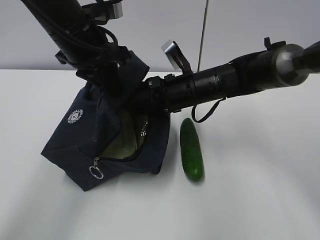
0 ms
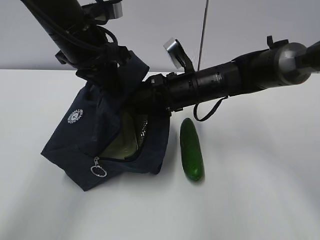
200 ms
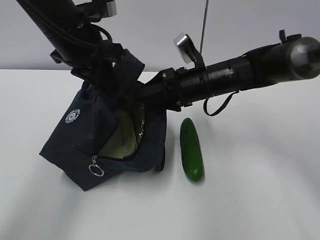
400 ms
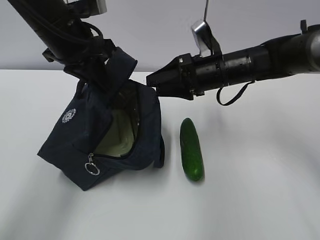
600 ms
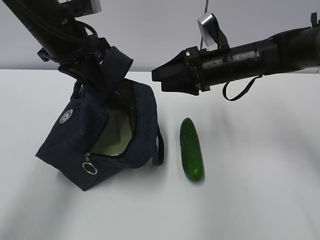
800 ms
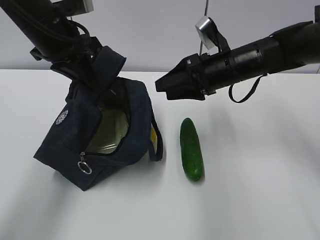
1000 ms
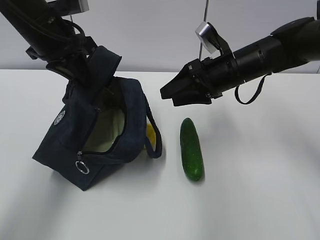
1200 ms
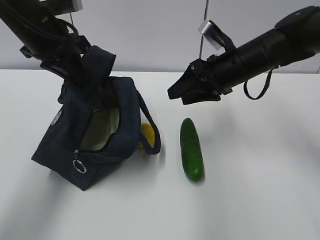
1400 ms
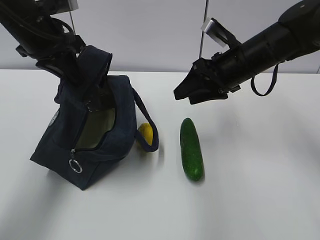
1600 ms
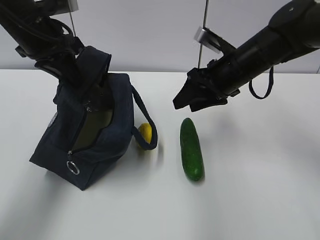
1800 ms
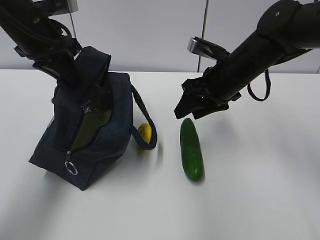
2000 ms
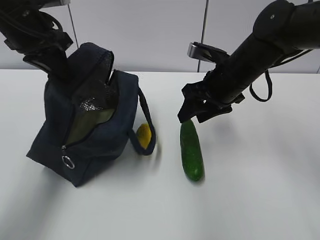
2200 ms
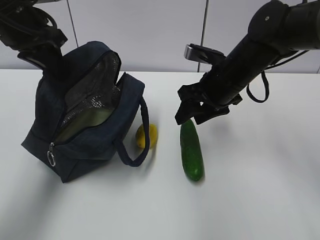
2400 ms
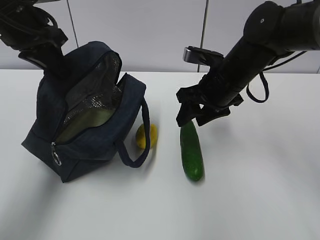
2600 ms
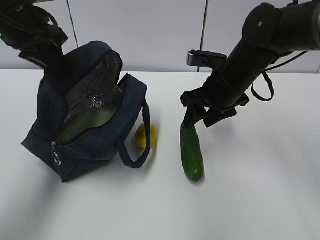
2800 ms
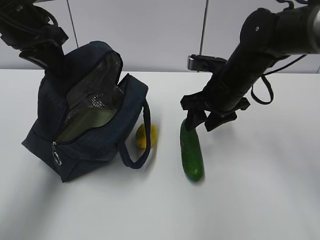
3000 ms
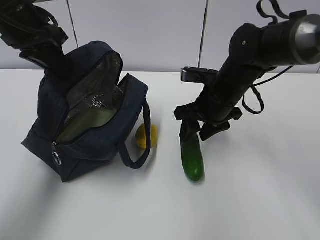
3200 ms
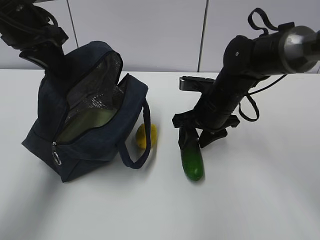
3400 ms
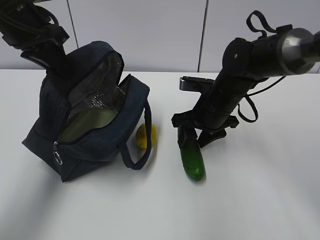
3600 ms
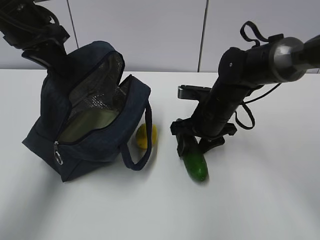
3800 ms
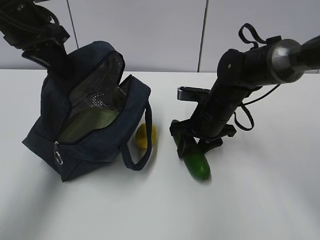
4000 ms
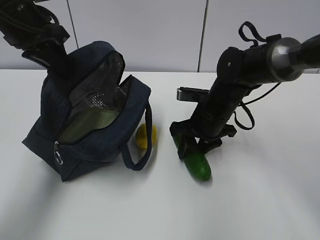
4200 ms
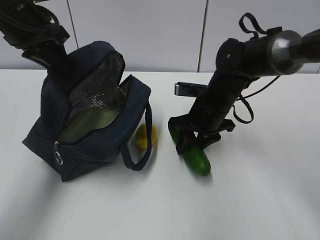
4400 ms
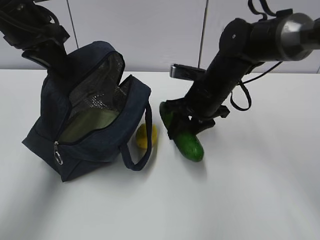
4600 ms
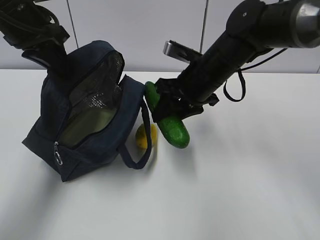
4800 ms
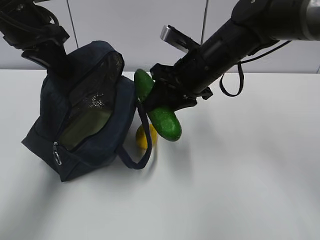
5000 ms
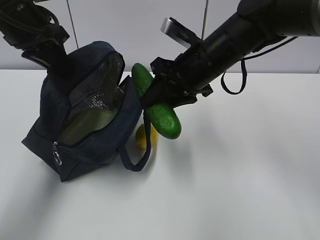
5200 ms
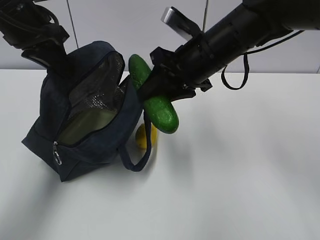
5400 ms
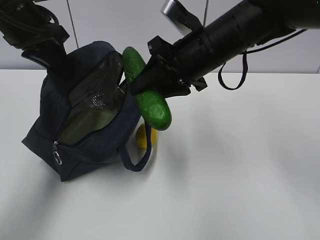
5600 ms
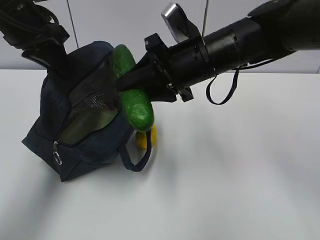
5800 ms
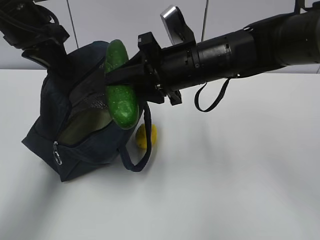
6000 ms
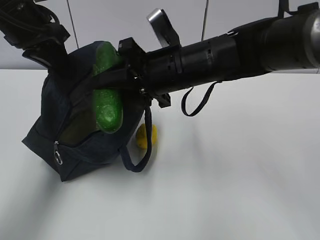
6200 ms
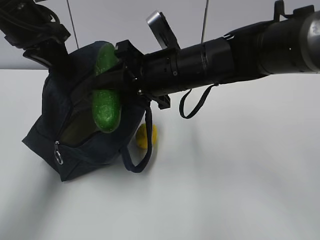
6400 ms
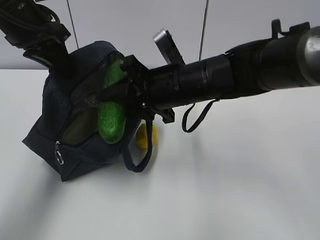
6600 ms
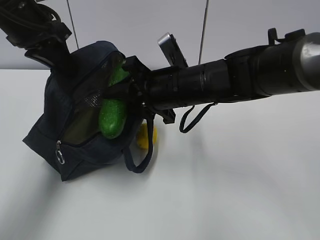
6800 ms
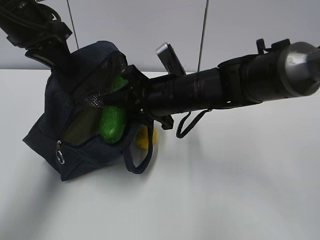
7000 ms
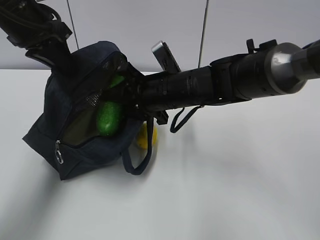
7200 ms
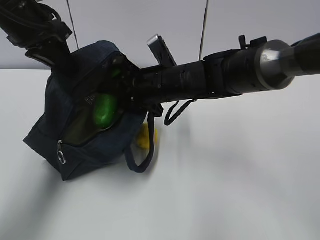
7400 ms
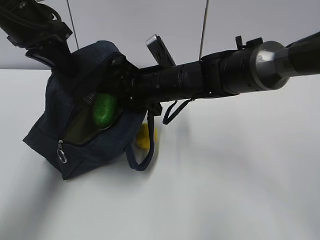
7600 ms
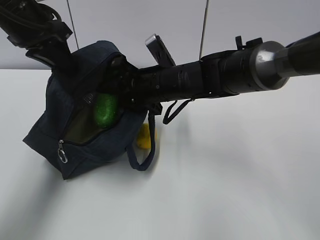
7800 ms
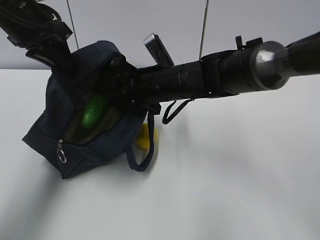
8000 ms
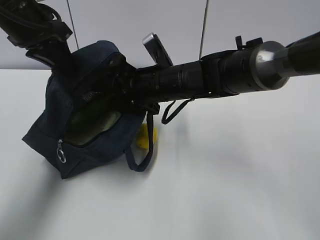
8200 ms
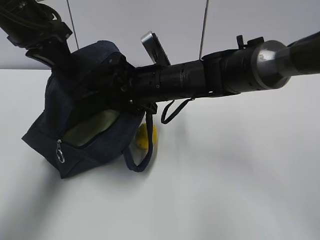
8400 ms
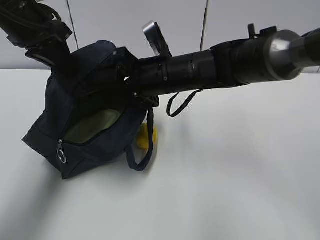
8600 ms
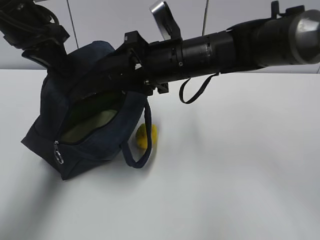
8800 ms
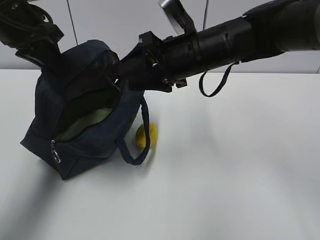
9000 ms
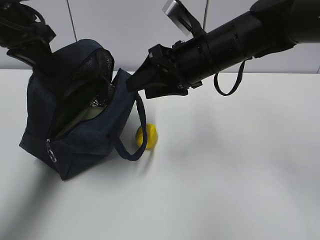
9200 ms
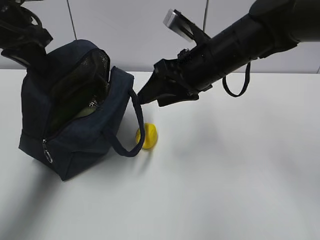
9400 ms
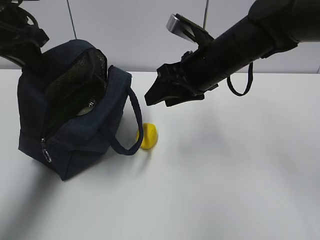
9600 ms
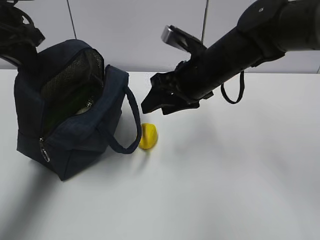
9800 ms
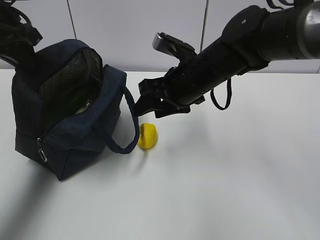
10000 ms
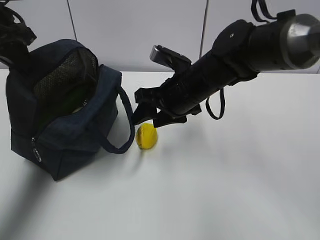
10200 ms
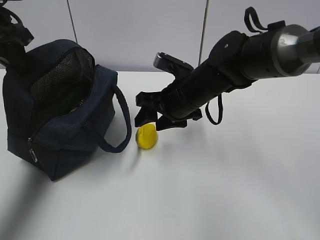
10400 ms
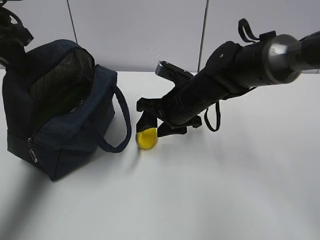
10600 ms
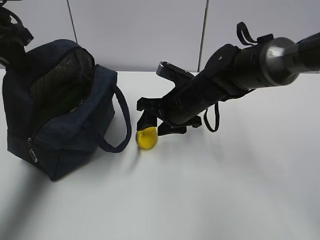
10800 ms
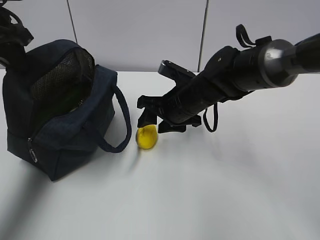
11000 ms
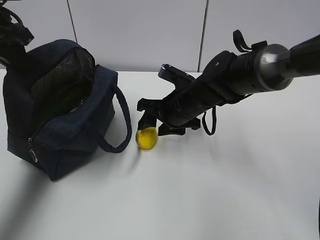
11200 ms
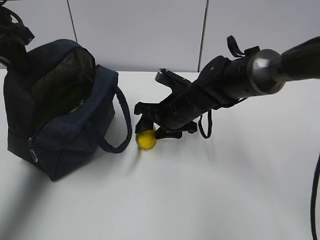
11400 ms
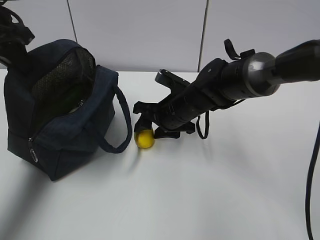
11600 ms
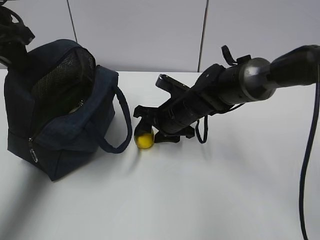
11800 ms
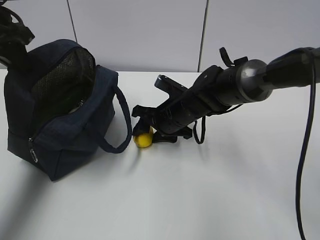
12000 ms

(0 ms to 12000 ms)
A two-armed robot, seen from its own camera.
Step, 0 ms - 2800 ms: Place it into the bag with your right hand.
Step, 3200 ms - 6000 ms: Grab the lemon with your right hand.
Step, 9000 ms - 11200 ms: Grab the lunch bag with your right hand.
0 ms - 1600 ms: The left gripper goes roughly 5 cm to the left; the right gripper goes roughly 10 cm to the right and upward.
3000 ms - 4400 ms: The right gripper travels downward by some 5 cm.
4400 ms - 6000 ms: The right gripper shifts some 10 cm upward.
6000 ms - 7600 ms: The right gripper travels downward by roughly 5 cm.
7600 ms - 9000 ms: The right gripper is displaced upward by some 5 cm.
9000 ms - 10400 ms: The left gripper shifts approximately 5 cm to the left. Meanwhile the right gripper is displaced downward by some 10 cm.
10400 ms - 12000 ms: The right gripper heads downward, covering some 5 cm.

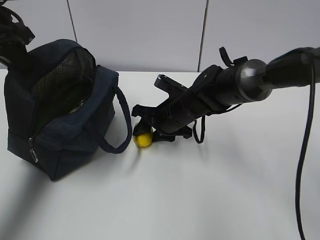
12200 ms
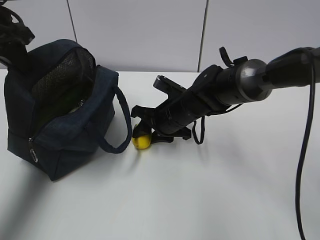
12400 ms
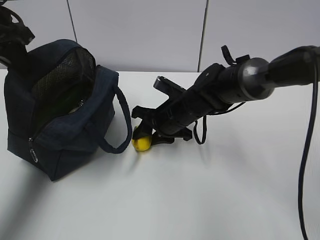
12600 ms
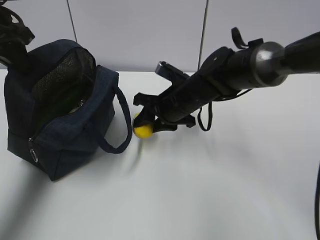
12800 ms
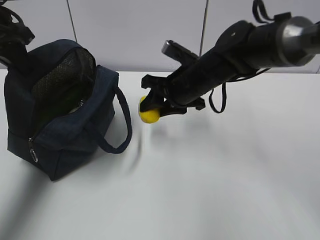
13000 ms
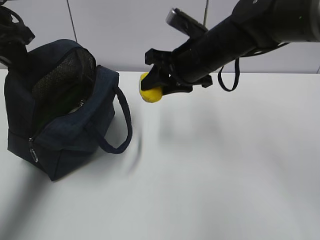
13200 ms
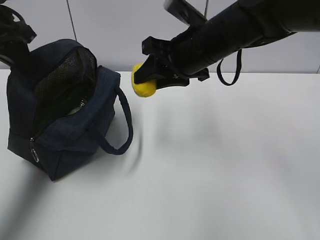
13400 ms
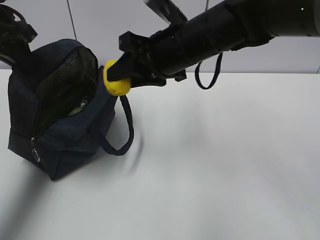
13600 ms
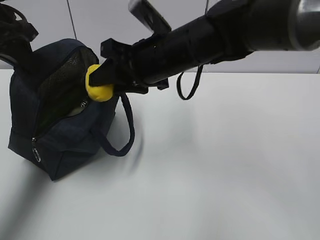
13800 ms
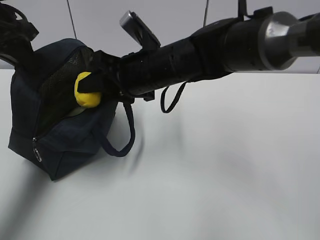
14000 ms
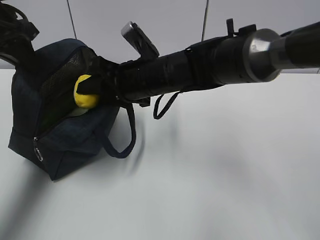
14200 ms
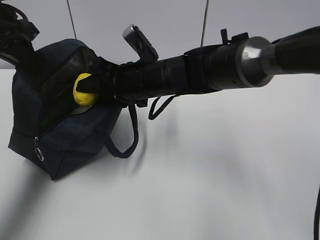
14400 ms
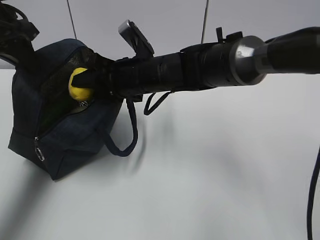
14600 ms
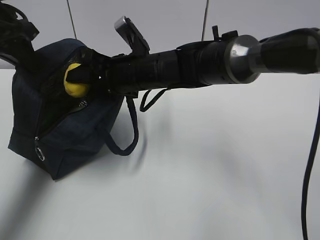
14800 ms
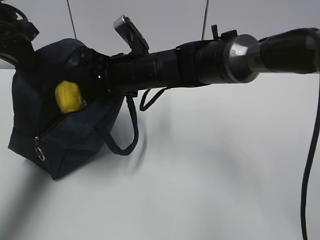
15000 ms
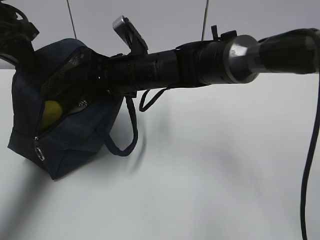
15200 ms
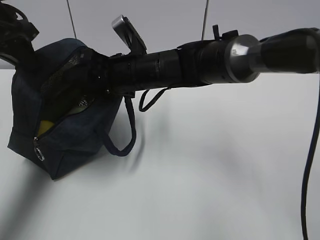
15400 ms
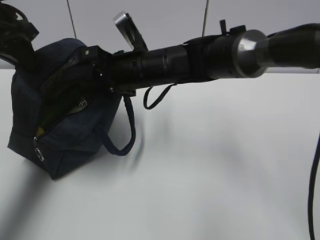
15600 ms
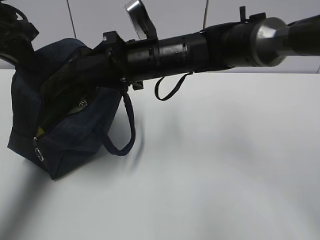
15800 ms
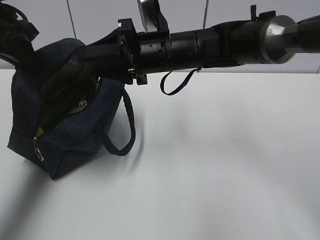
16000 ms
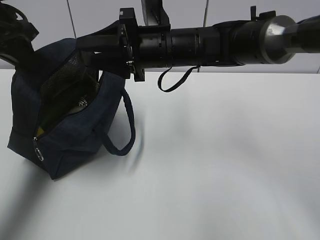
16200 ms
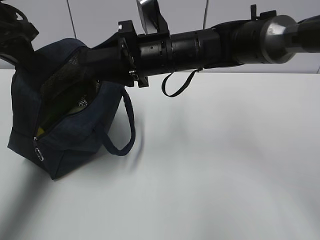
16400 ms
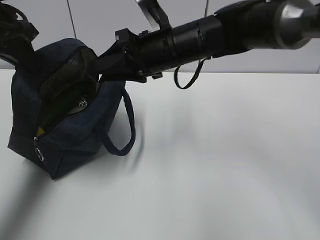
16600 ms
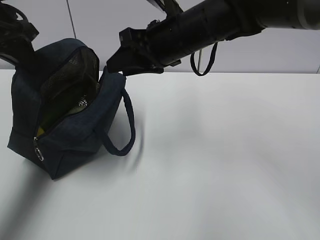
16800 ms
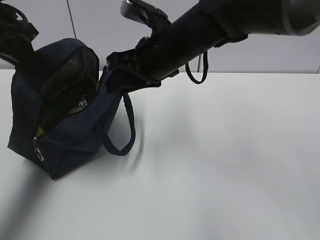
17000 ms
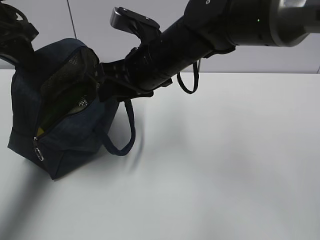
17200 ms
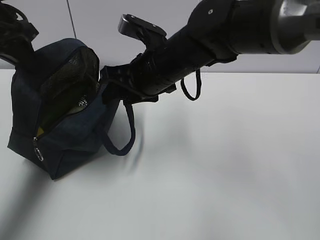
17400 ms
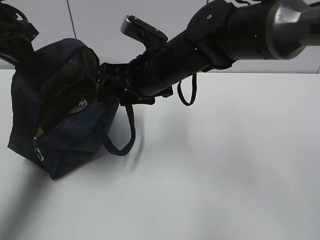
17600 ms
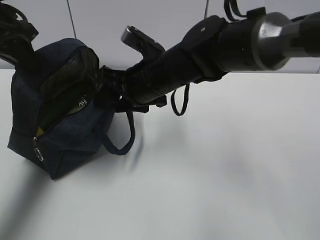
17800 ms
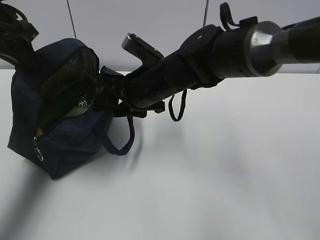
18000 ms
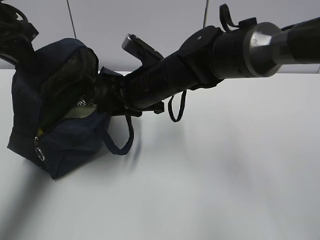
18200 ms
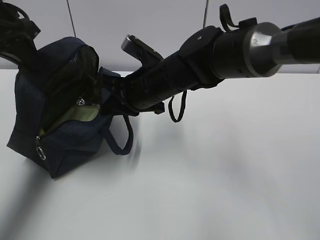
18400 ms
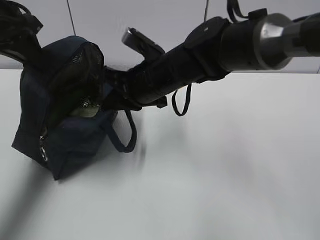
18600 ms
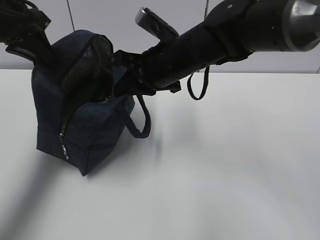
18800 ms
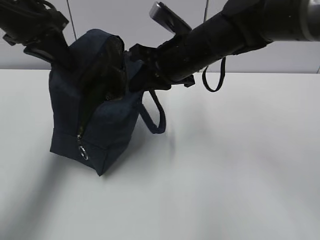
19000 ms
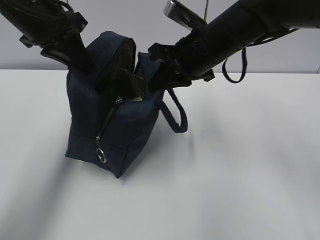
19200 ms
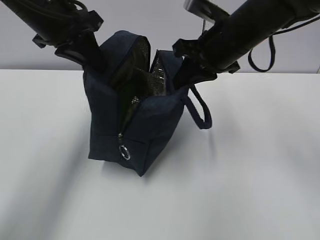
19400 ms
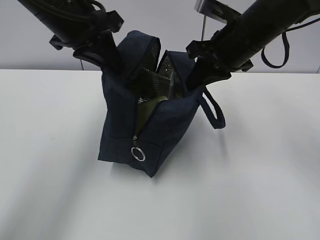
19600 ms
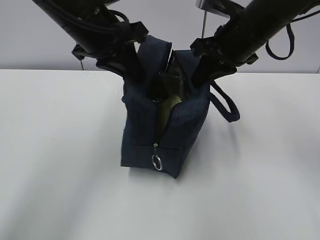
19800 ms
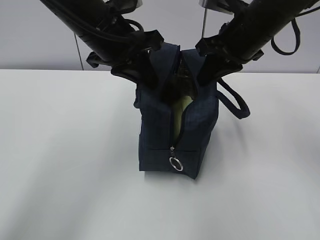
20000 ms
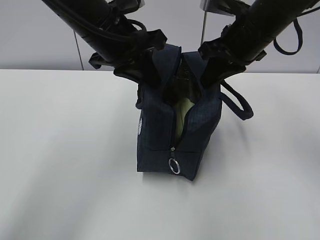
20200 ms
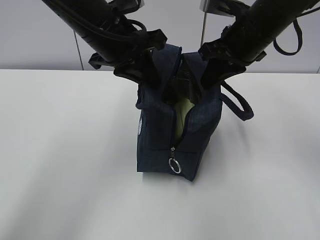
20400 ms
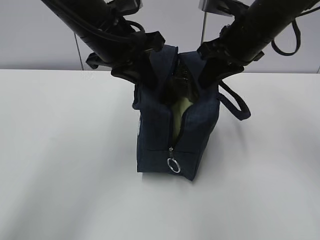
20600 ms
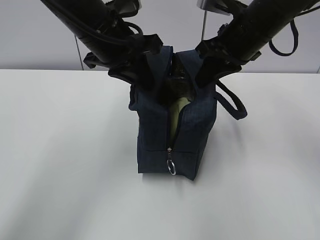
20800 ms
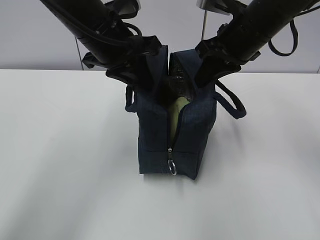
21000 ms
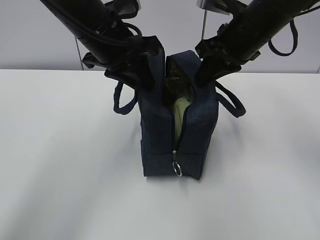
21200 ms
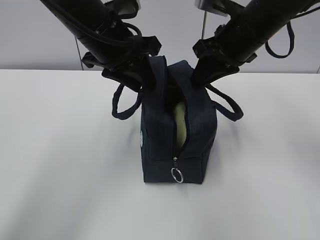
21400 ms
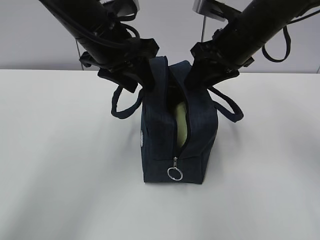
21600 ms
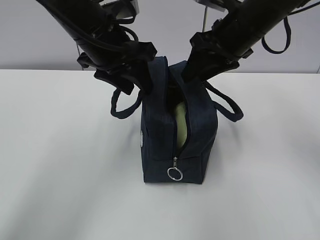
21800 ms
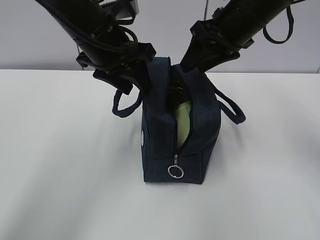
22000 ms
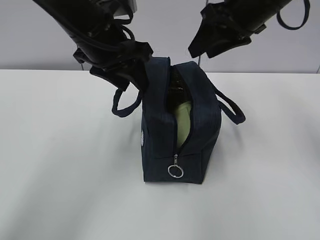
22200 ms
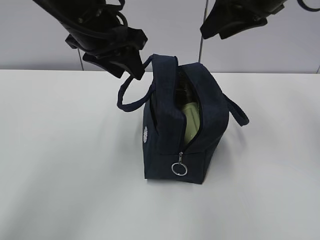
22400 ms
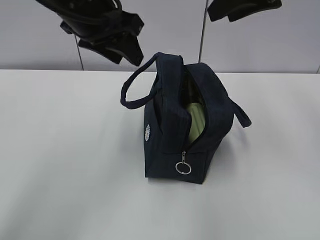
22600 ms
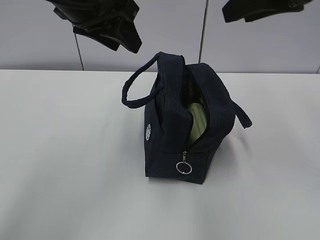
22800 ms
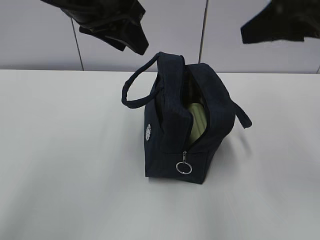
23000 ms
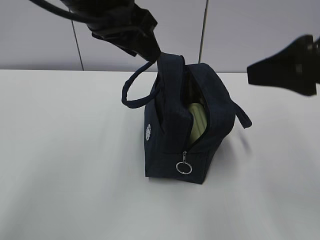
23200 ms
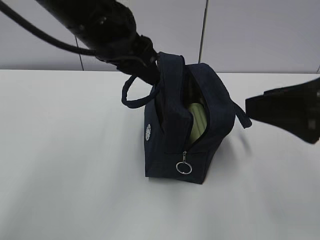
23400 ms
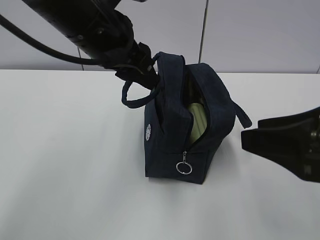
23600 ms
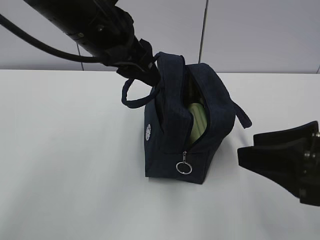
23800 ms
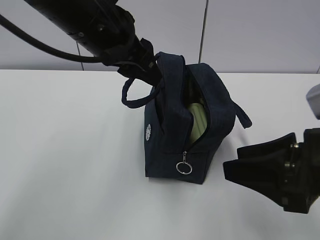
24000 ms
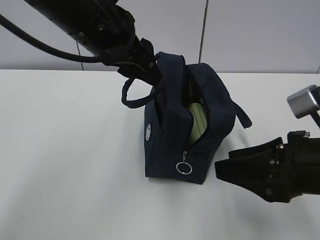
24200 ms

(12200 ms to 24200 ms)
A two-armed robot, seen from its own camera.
Step, 12200 ms - 13600 ms: Move the lunch bag to the right.
12200 ms - 13800 ms: The right gripper goes approximately 15 cm upward.
13800 ms - 15200 ms: The right gripper moves downward, roughly 5 cm.
15200 ms - 16600 ms: The right gripper is displaced to the right by roughly 5 cm.
16600 ms - 18200 ms: The right gripper shifts by roughly 5 cm.
18200 ms - 19800 ms: The right gripper shifts roughly 15 cm to the right and upward, and closes up; the left gripper travels to the right by approximately 15 cm.
19800 ms - 21200 ms: There are only small adjustments of the grippers.
21200 ms - 22600 ms: The right gripper heads upward, covering some 10 cm, and opens; the left gripper opens.
22600 ms - 24200 ms: The right gripper travels downward and backward by some 25 cm.
